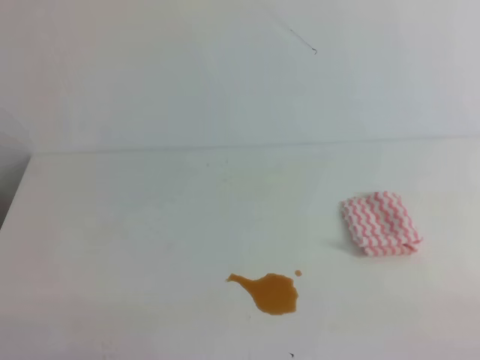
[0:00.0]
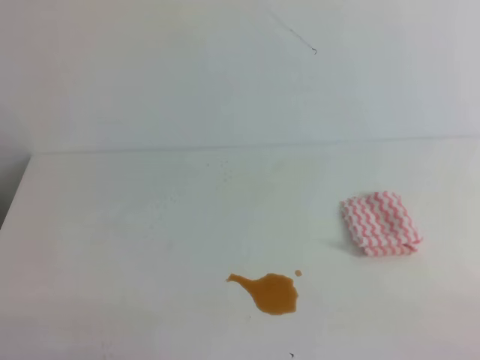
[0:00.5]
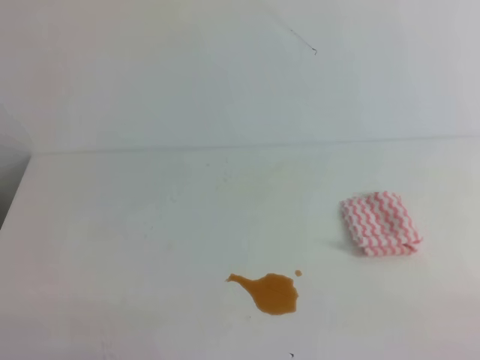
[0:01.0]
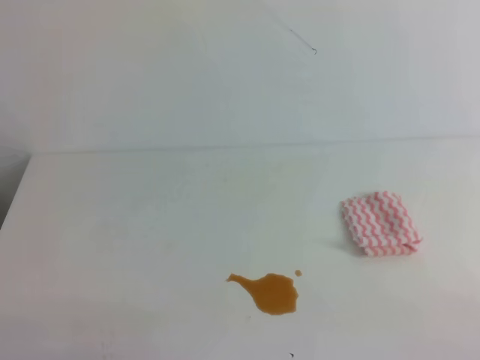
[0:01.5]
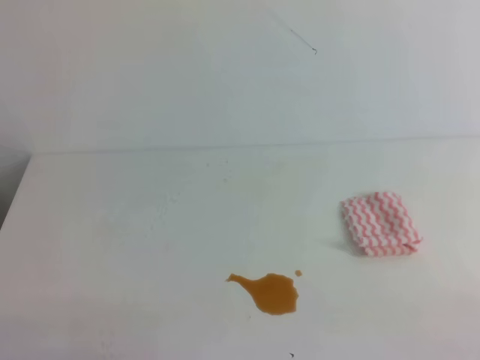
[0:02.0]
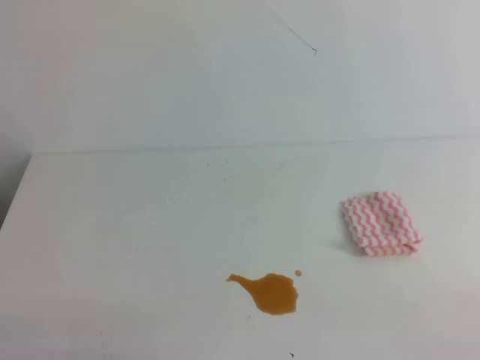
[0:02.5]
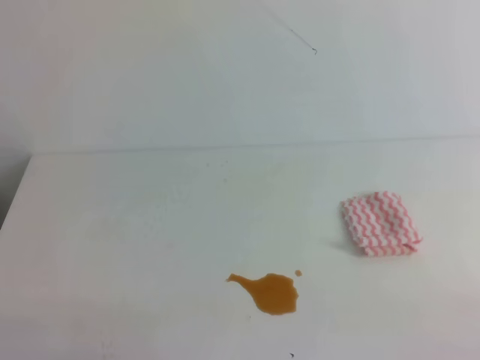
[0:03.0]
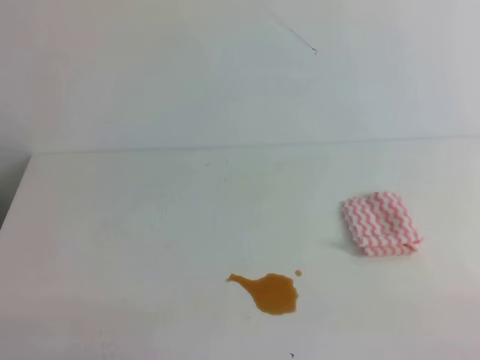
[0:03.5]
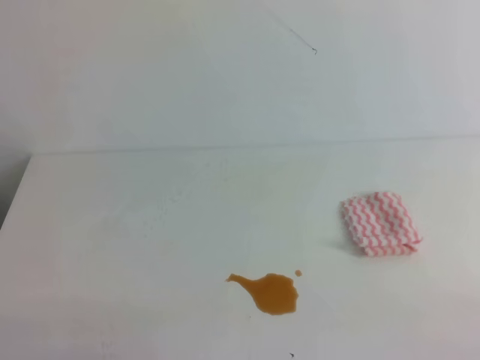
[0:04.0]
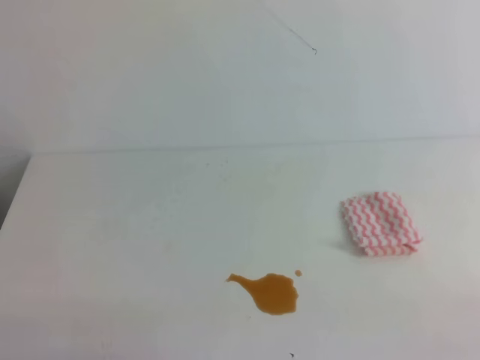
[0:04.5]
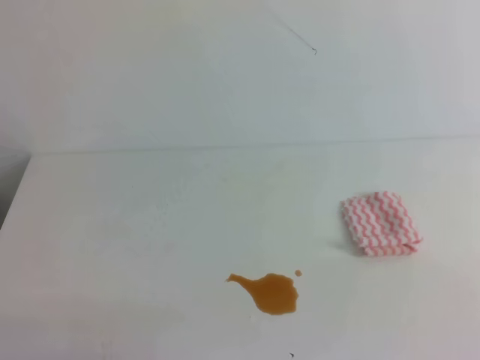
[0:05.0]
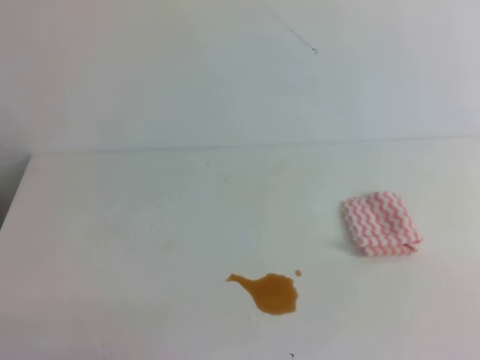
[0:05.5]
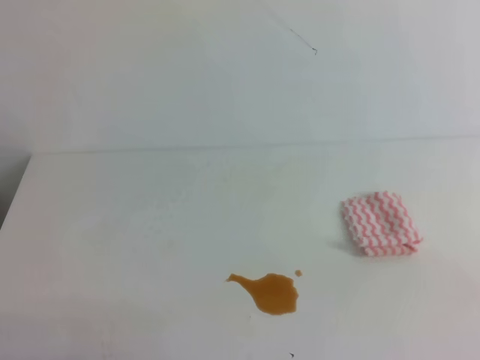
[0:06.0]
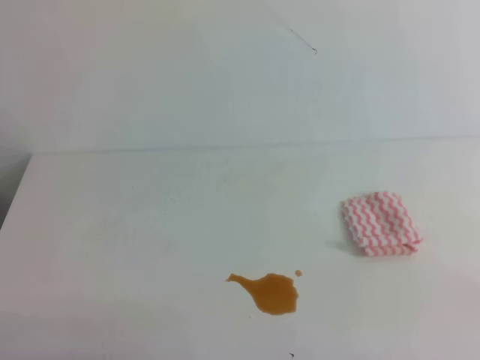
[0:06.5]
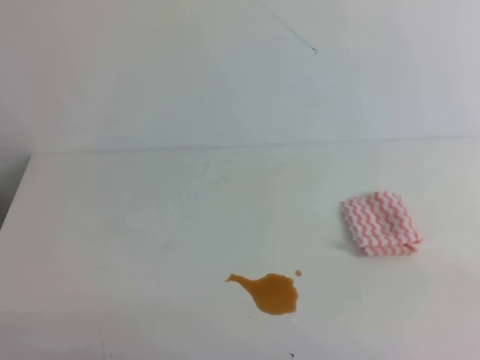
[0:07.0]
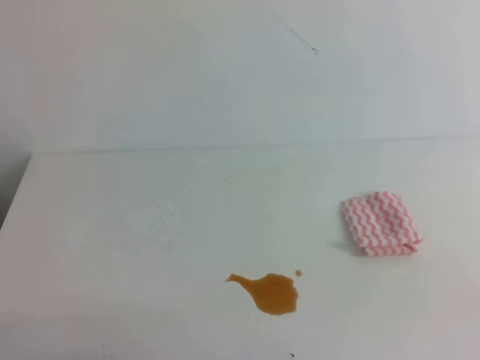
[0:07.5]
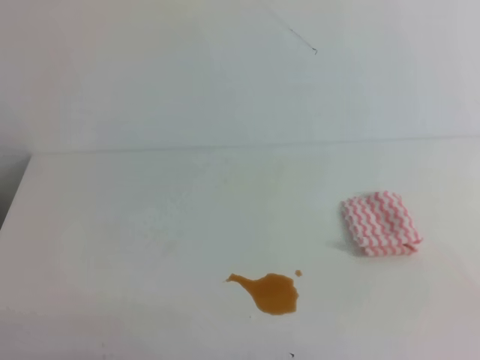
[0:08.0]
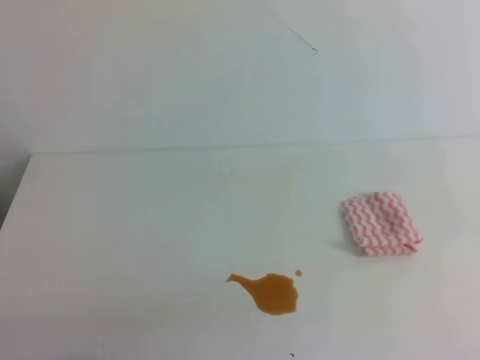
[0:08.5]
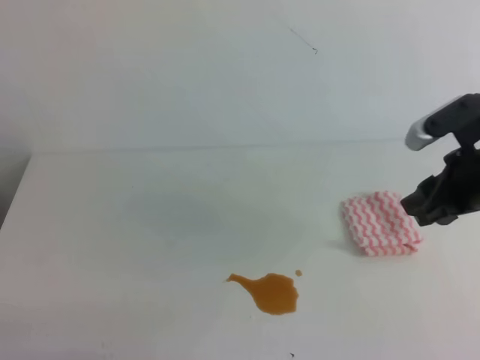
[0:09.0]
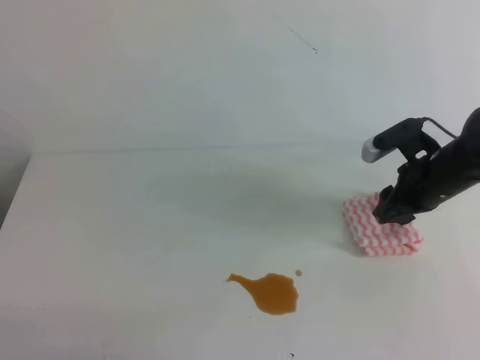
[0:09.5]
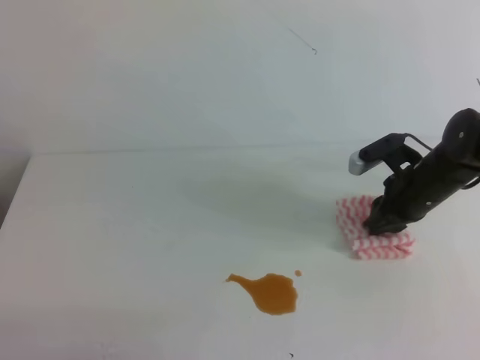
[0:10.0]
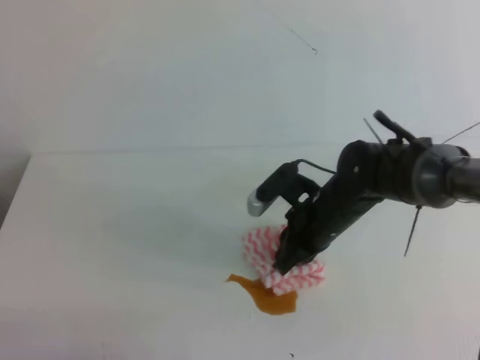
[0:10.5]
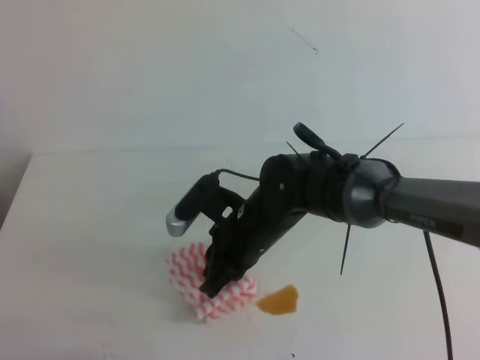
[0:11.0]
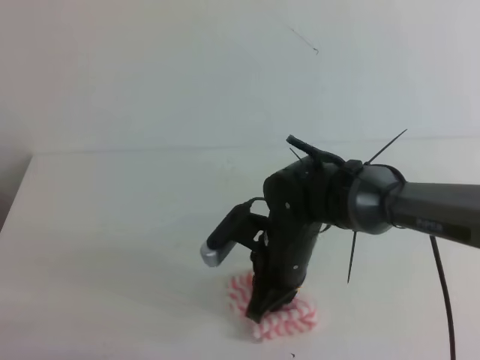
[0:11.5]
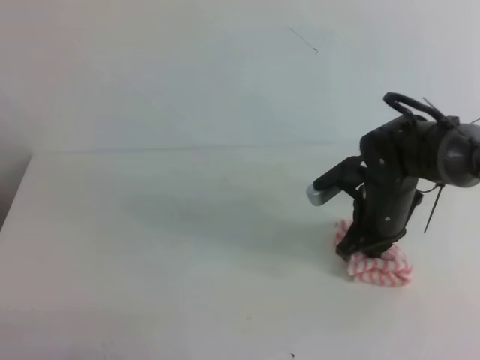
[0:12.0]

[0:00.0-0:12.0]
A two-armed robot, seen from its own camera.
0:00.0 to 0:04.0: The two grippers keep their place.
0:08.0 to 0:10.0: The right gripper heads forward and downward, covering about 30 cm, and opens up.
0:10.0 to 0:12.0: The right gripper goes approximately 10 cm to the left, and closes.

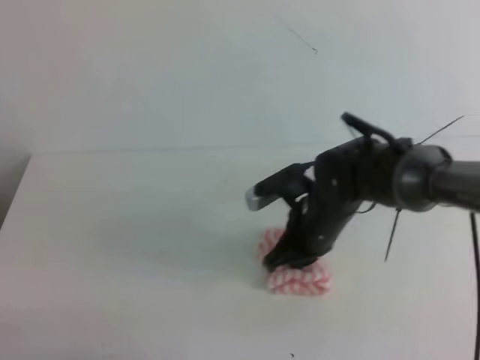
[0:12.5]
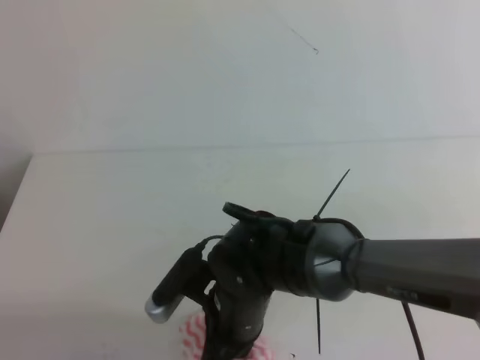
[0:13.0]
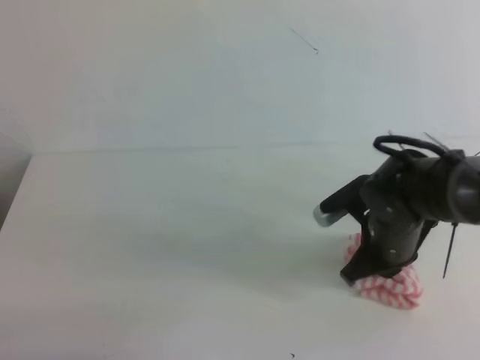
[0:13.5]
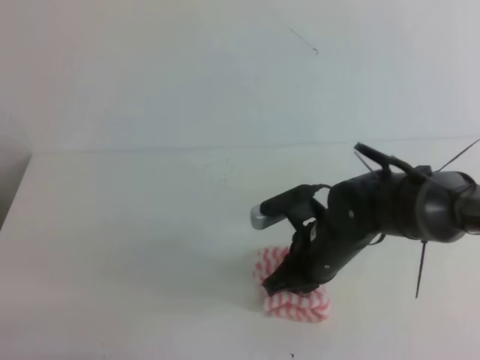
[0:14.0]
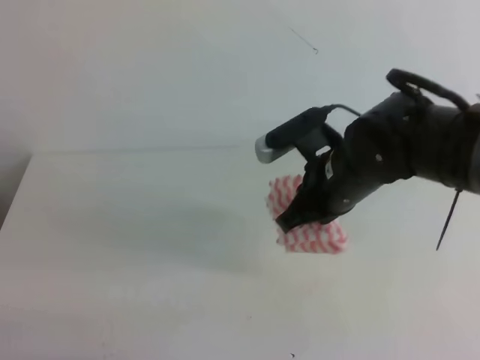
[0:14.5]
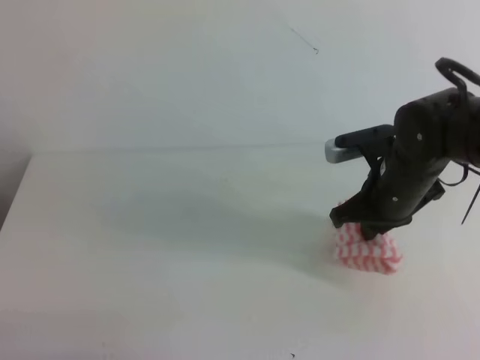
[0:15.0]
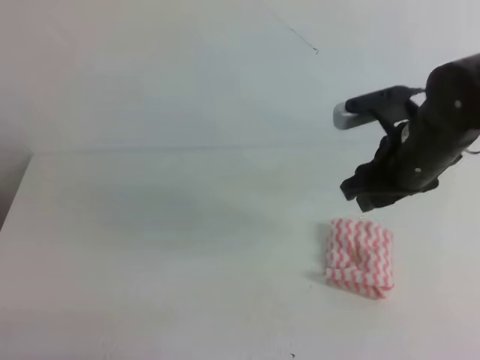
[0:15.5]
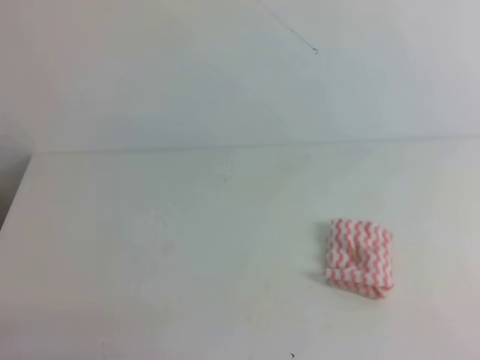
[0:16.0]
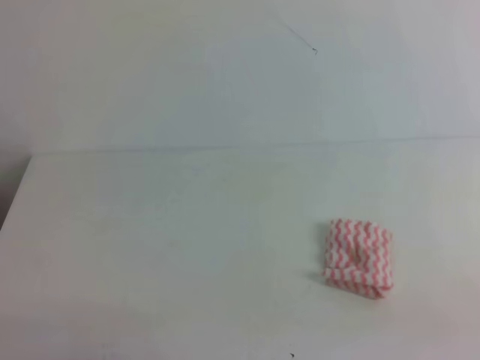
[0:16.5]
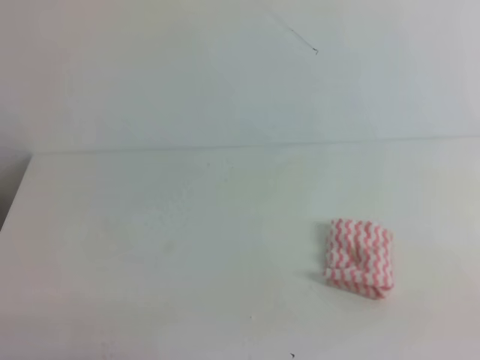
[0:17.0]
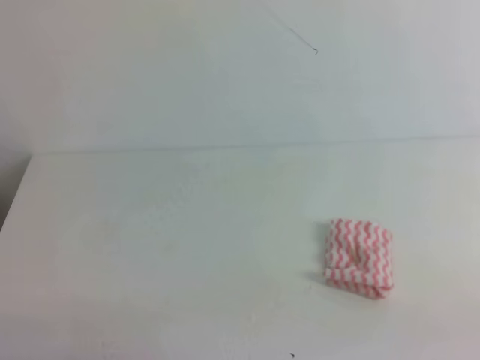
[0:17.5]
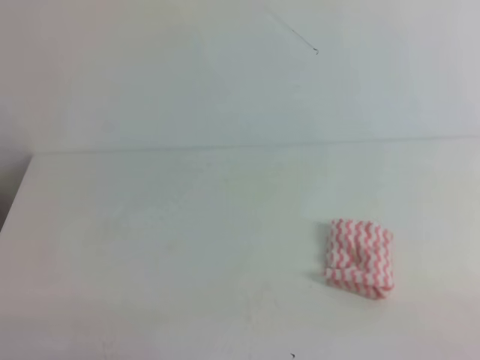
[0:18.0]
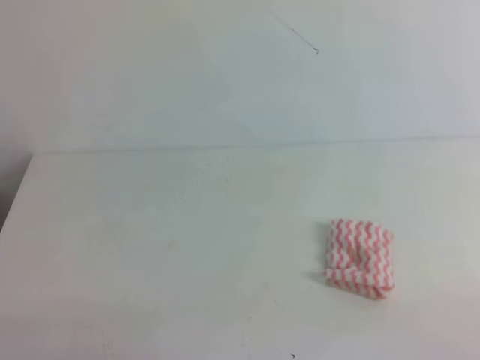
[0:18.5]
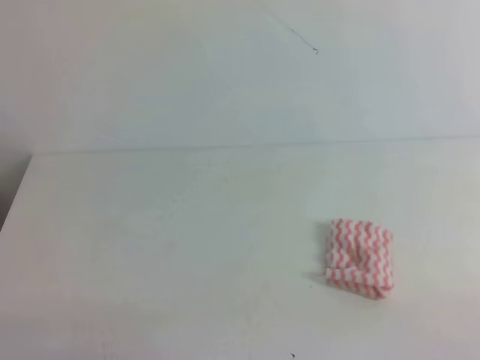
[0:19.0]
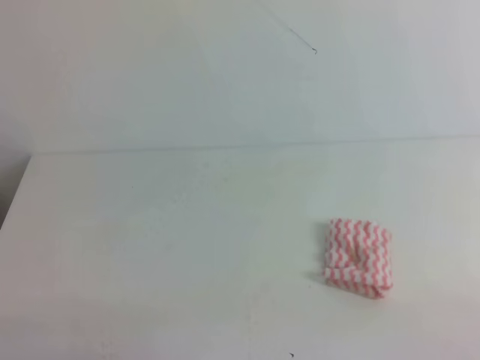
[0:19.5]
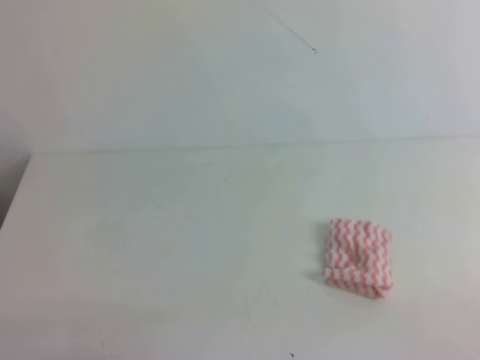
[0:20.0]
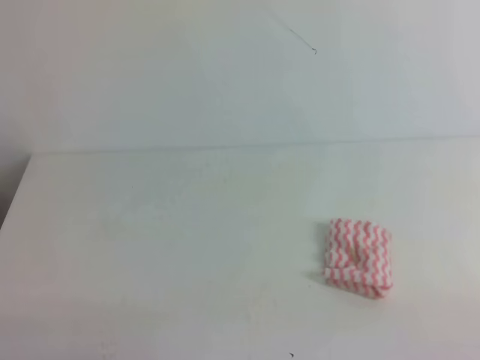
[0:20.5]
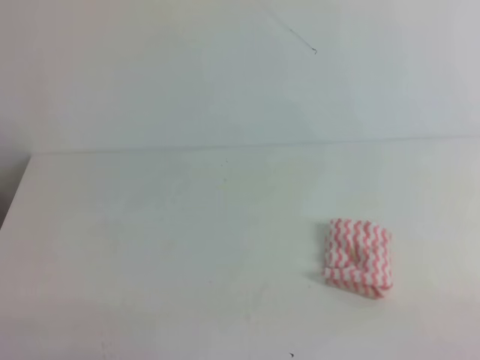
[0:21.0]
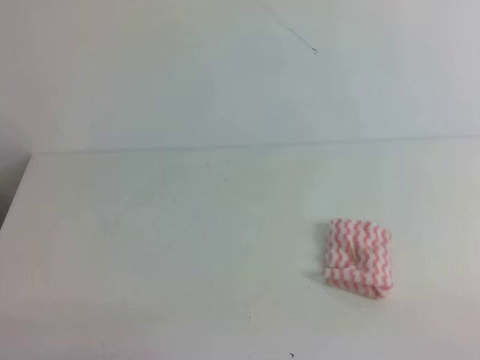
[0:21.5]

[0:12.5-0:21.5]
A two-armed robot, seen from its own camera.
0:12.5 to 0:14.5: The right gripper goes approximately 5 cm upward, and moves approximately 10 cm to the left and comes back.
0:14.5 to 0:17.0: The right gripper is displaced backward and to the right by roughly 35 cm, and opens, then closes again.
0:19.5 to 0:21.5: Both grippers stay about where they are.

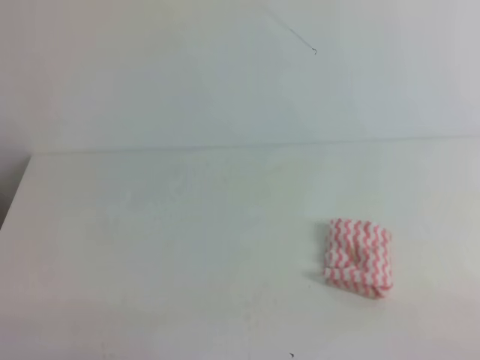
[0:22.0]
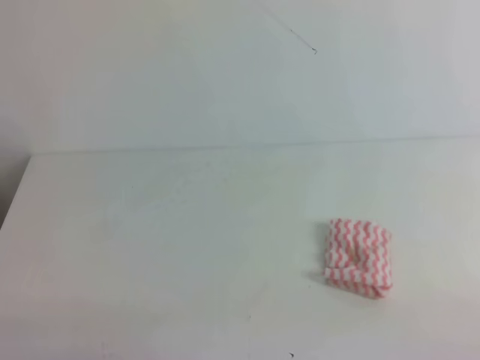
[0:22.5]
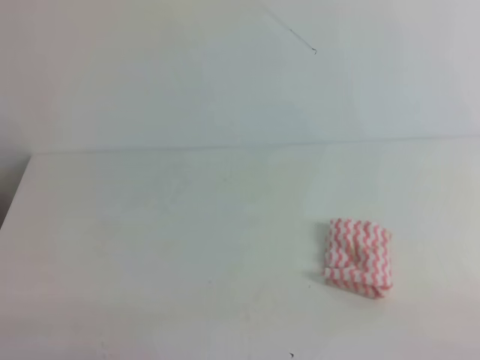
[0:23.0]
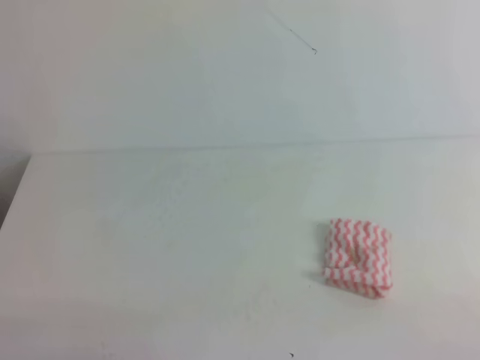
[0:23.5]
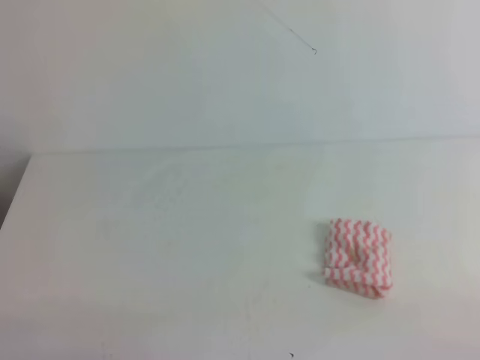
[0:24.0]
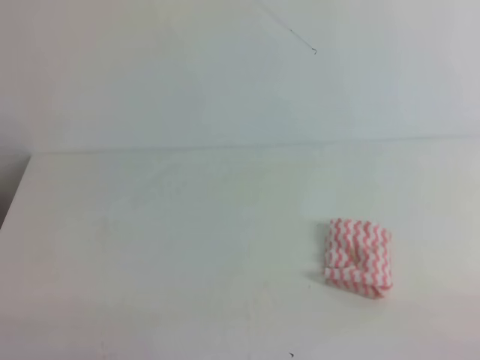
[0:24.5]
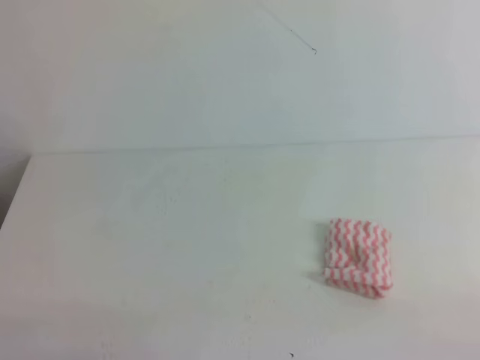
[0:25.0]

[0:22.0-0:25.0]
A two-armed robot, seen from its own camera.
0:22.0 to 0:25.0: Both grippers stay about where they are.
